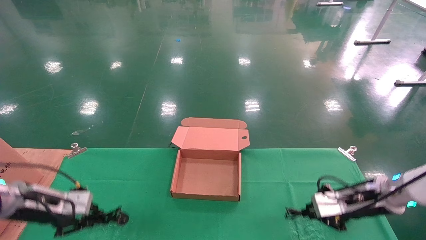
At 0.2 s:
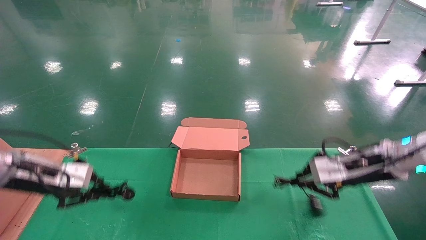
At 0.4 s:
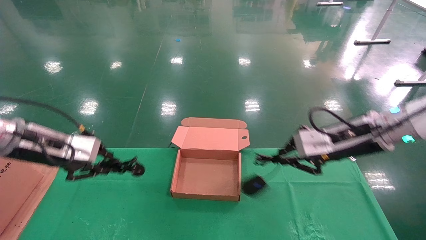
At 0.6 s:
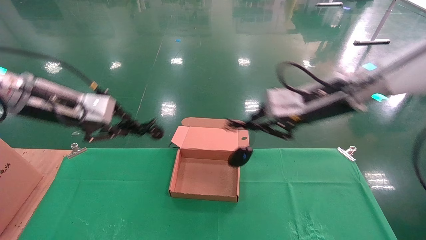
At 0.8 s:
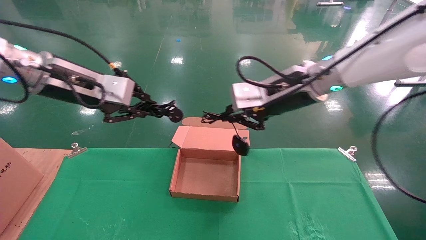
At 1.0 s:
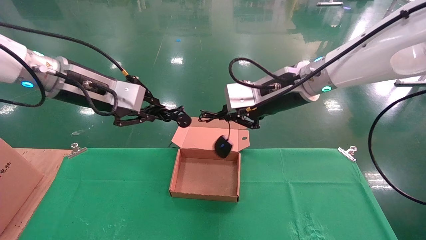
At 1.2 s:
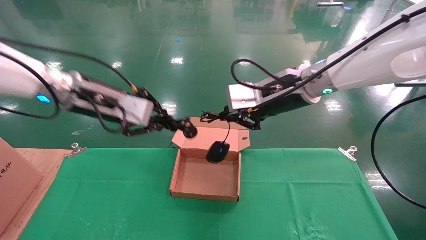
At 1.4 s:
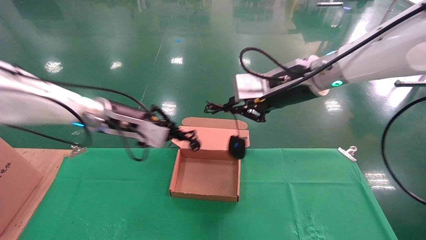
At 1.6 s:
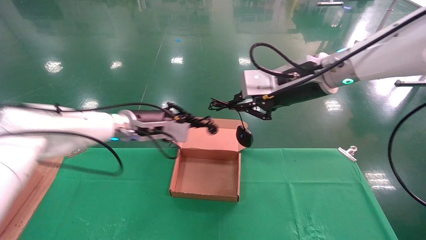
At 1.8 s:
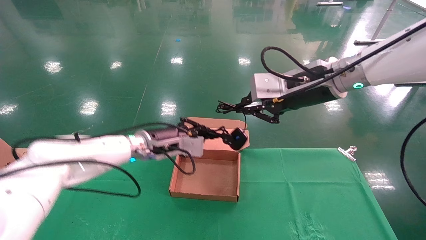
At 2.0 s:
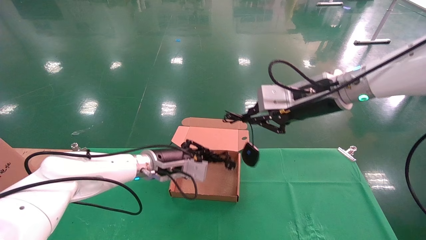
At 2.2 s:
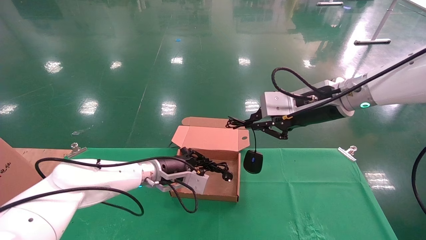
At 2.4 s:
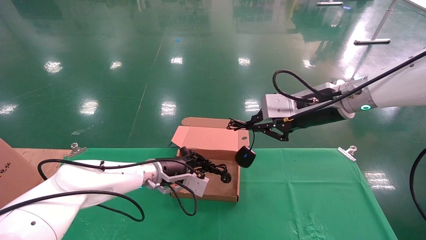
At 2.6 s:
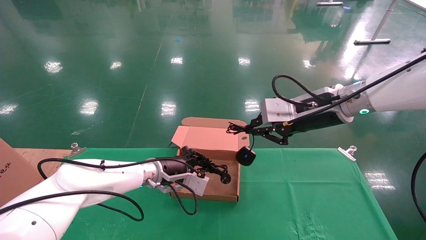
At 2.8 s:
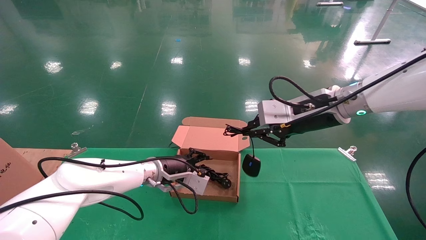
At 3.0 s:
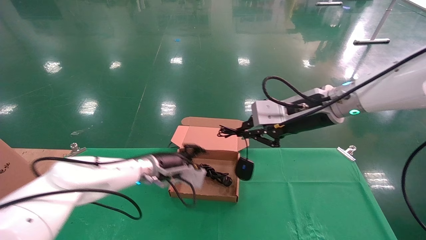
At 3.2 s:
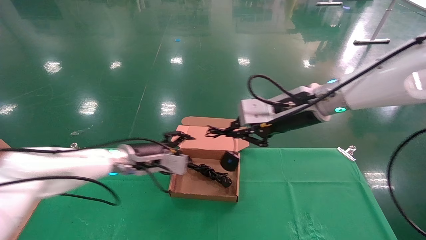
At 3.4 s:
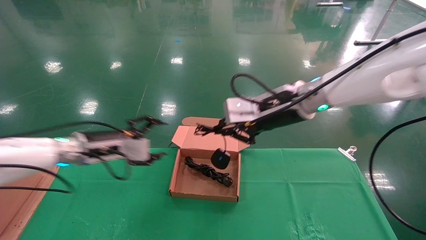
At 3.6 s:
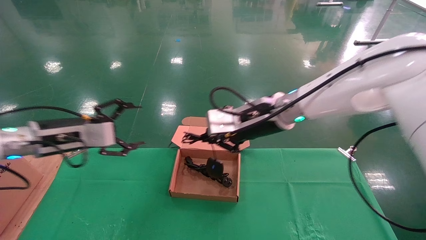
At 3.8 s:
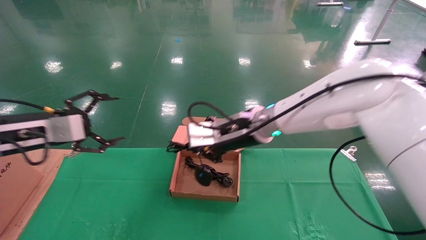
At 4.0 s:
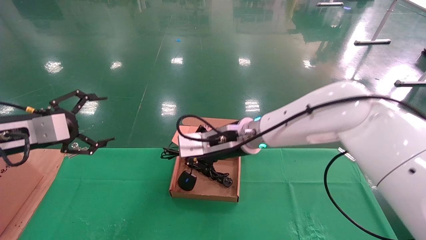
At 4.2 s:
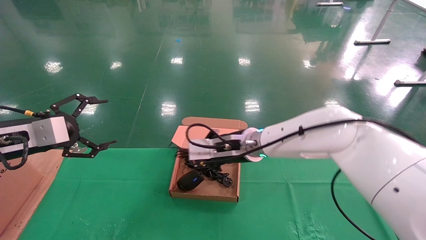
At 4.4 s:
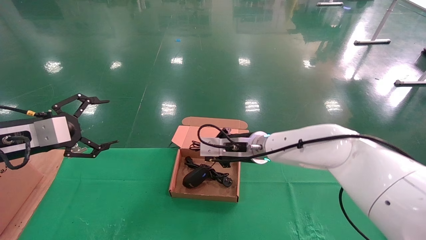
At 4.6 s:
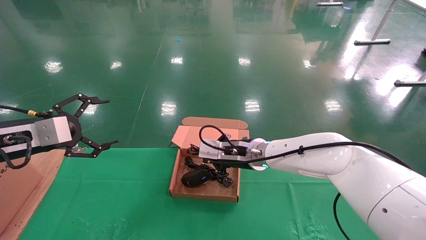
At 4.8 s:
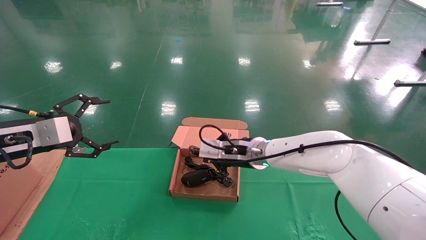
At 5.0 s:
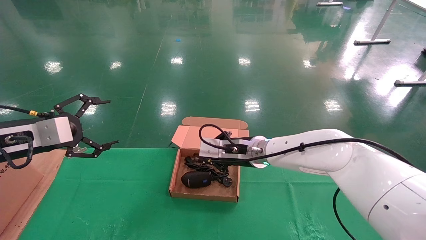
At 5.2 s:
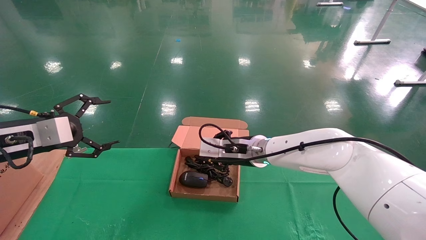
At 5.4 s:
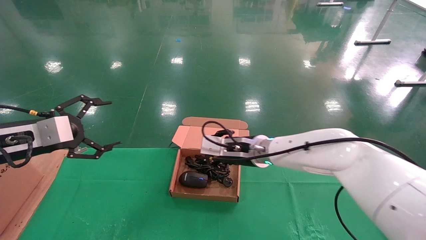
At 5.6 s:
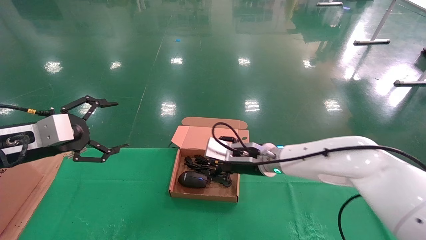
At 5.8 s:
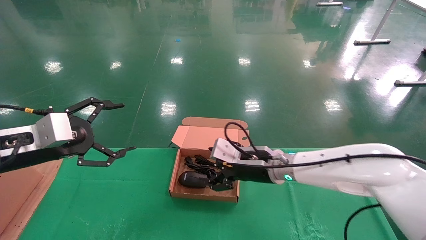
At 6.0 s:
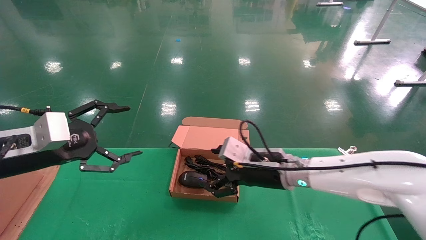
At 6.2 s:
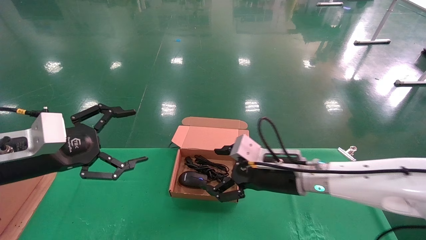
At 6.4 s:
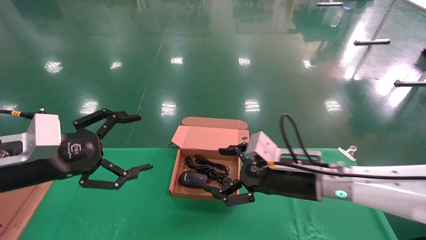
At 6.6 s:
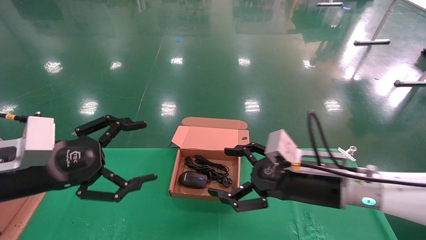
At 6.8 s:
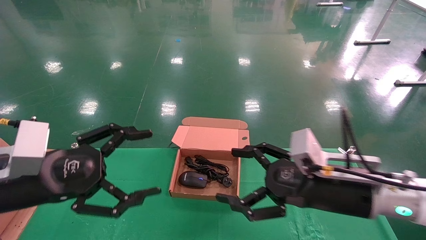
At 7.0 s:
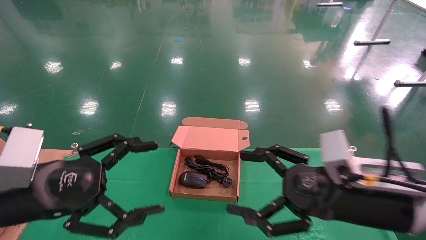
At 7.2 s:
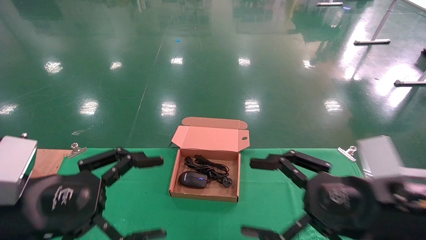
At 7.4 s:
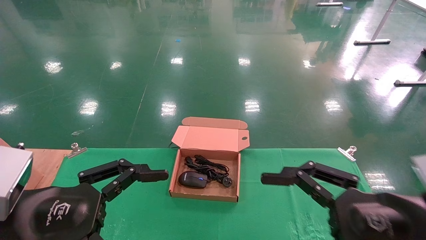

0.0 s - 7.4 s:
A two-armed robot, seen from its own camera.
Step, 0.0 s - 6.2 s: Place the mouse and power cord into the box.
0.0 s - 1.4 s: The left gripper is displaced to the right and upward by roughly 25 cm. Meanwhile the right gripper moves upward and to the left, approximately 30 cm.
1.4 s - 3.0 s: The right gripper shifts by approximately 5 cm, while the left gripper travels downward by some 15 cm.
3.0 s - 4.4 s: The left gripper shifts about 30 cm to the left, backward and upward, and opens its fingers. Meanwhile the right gripper travels downward, to the left and forward by roughly 20 cm.
4.4 s - 6.0 s: The left gripper moves some 5 cm; the right gripper heads to the right and backward, covering roughly 10 cm, and opens its fingers.
6.0 s - 7.4 s: The left gripper travels backward and to the right by about 15 cm. The right gripper heads backward and to the right, covering roughly 25 cm.

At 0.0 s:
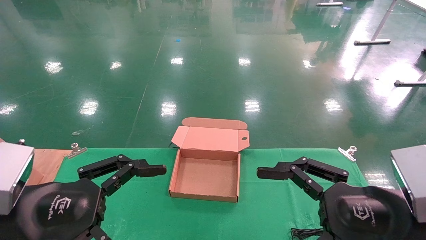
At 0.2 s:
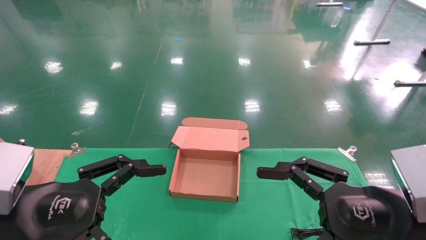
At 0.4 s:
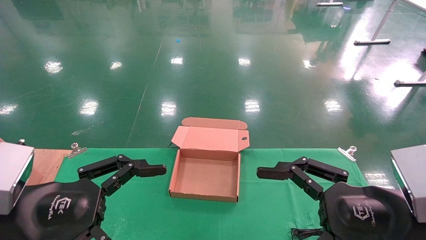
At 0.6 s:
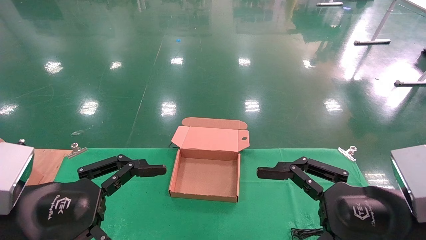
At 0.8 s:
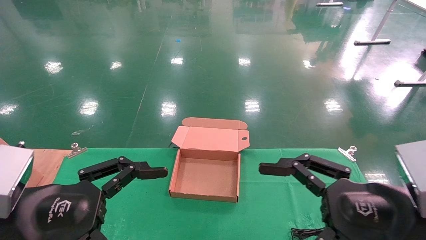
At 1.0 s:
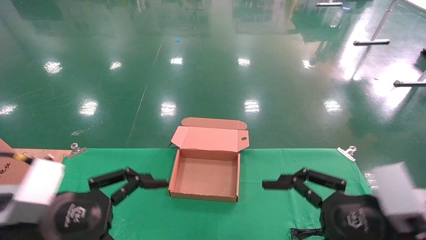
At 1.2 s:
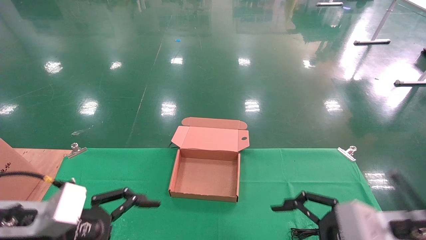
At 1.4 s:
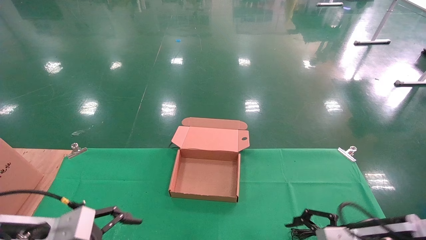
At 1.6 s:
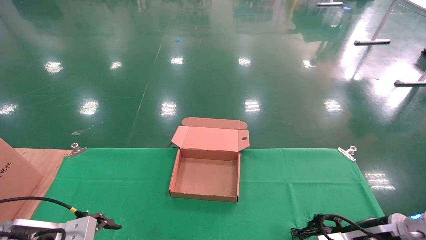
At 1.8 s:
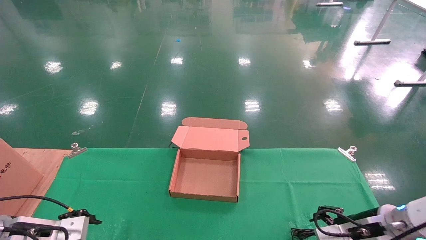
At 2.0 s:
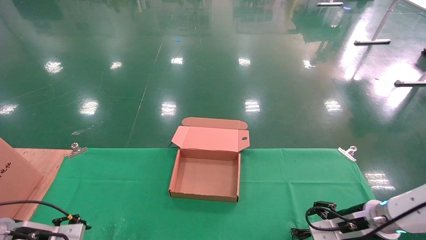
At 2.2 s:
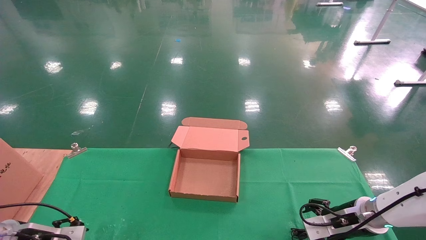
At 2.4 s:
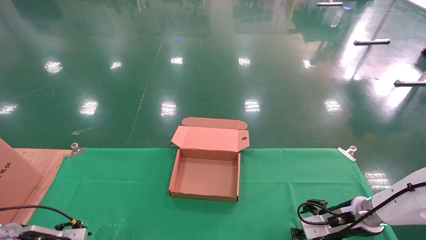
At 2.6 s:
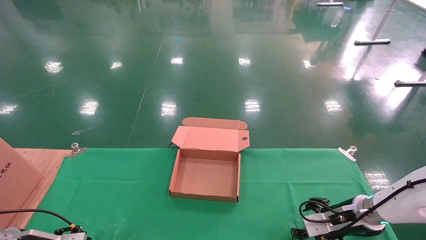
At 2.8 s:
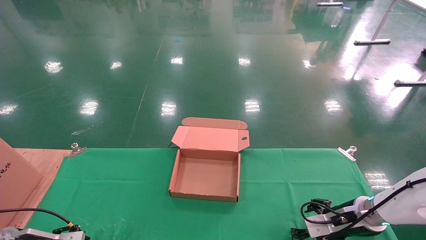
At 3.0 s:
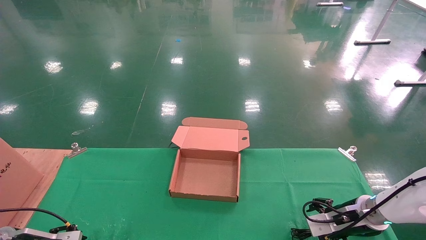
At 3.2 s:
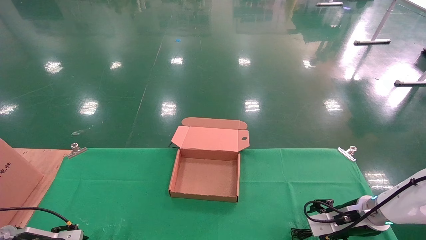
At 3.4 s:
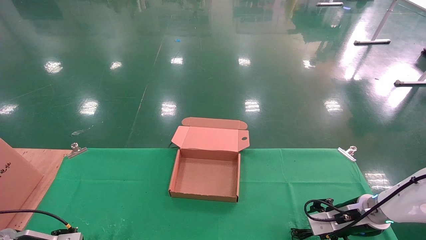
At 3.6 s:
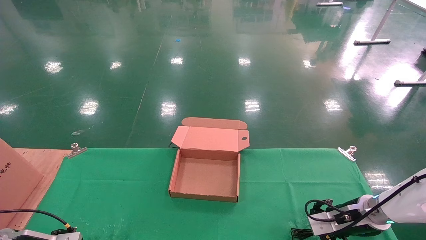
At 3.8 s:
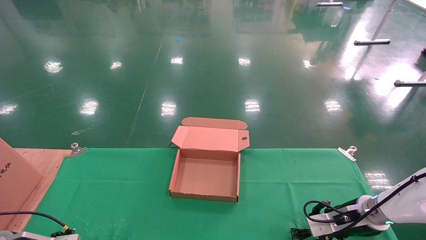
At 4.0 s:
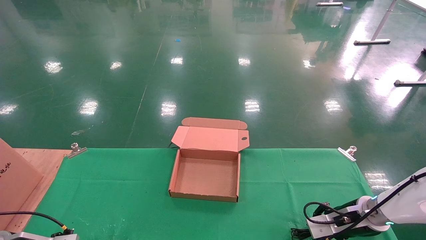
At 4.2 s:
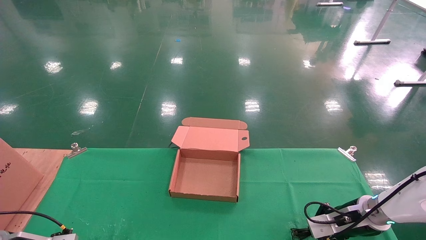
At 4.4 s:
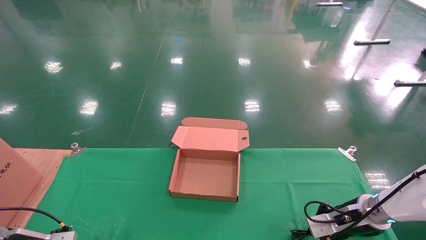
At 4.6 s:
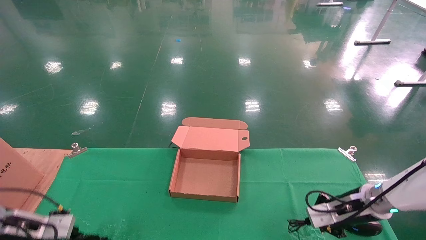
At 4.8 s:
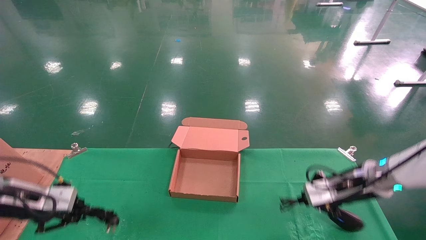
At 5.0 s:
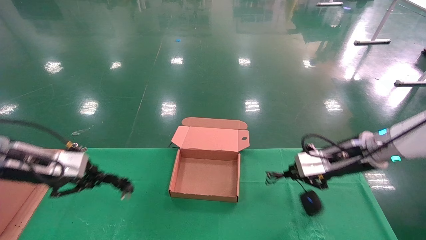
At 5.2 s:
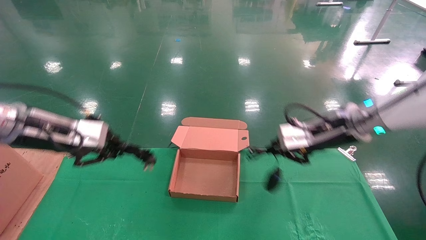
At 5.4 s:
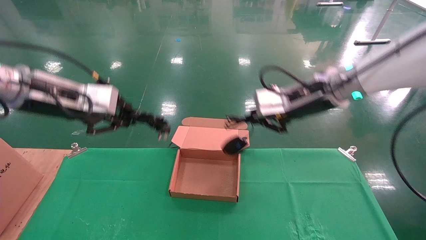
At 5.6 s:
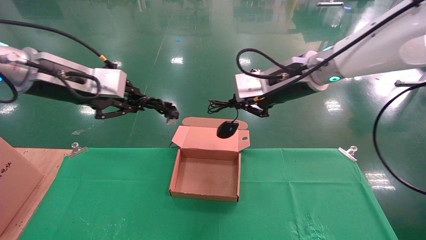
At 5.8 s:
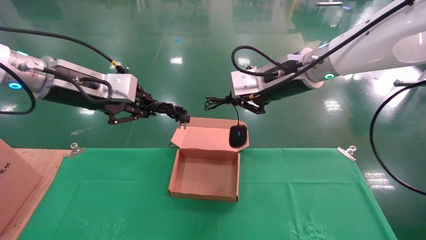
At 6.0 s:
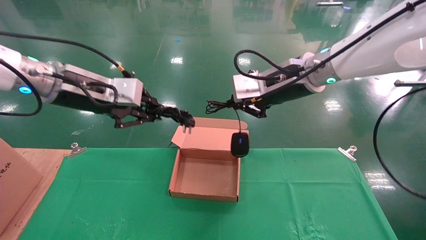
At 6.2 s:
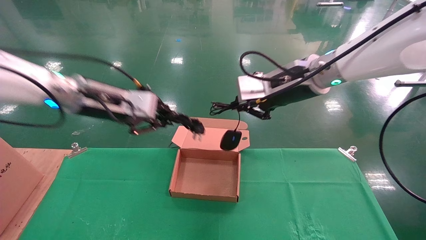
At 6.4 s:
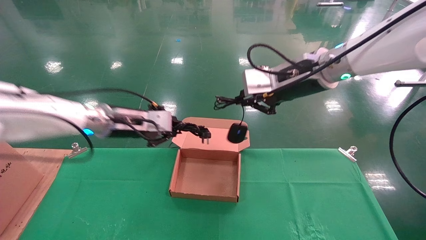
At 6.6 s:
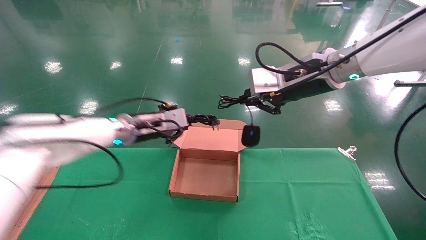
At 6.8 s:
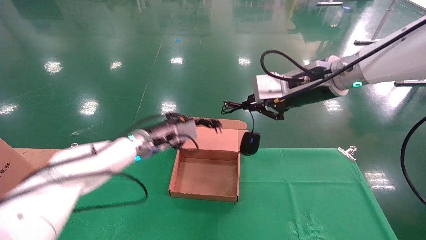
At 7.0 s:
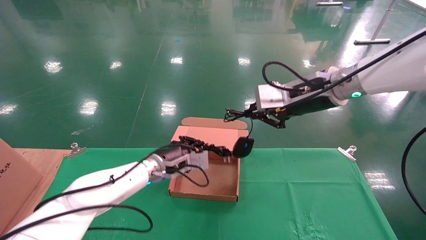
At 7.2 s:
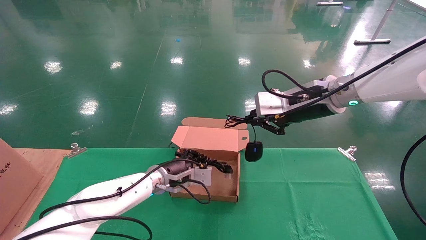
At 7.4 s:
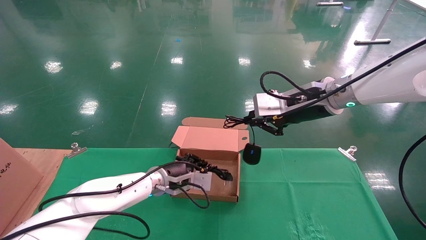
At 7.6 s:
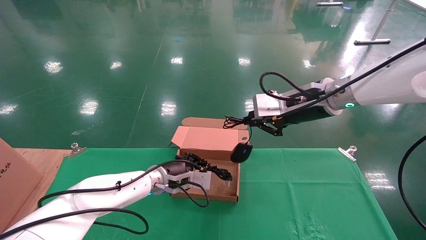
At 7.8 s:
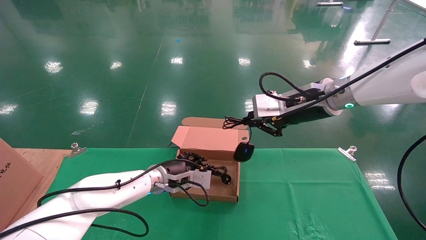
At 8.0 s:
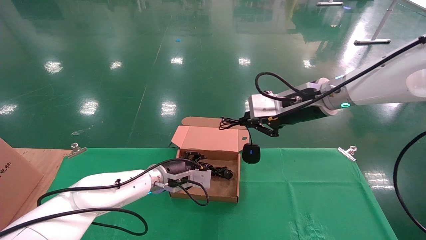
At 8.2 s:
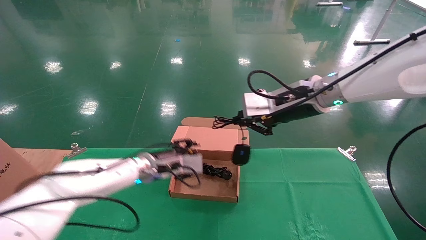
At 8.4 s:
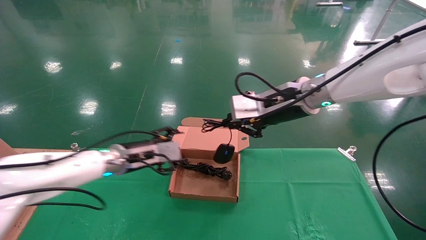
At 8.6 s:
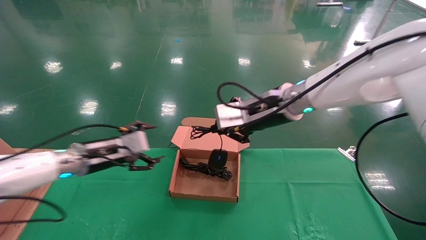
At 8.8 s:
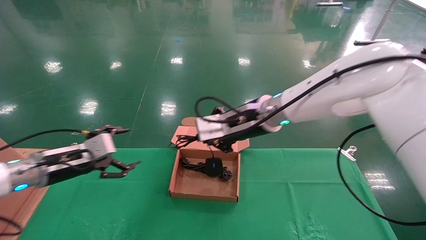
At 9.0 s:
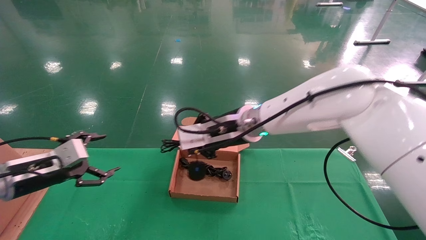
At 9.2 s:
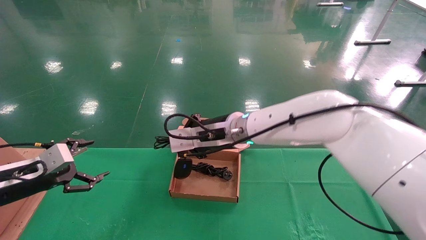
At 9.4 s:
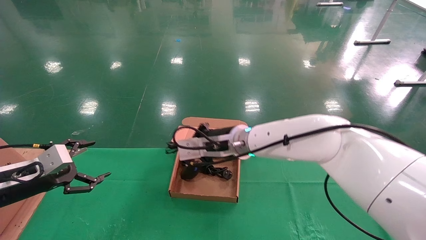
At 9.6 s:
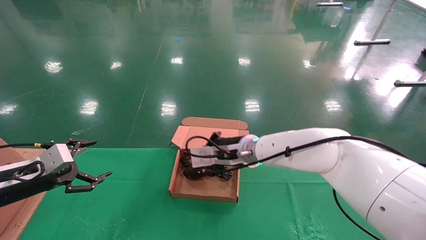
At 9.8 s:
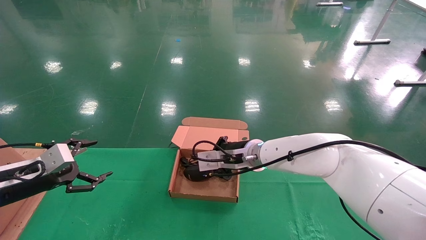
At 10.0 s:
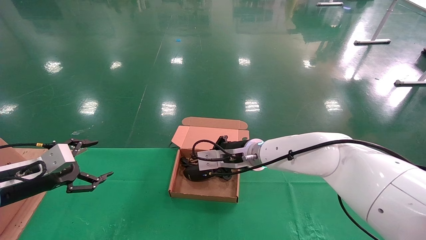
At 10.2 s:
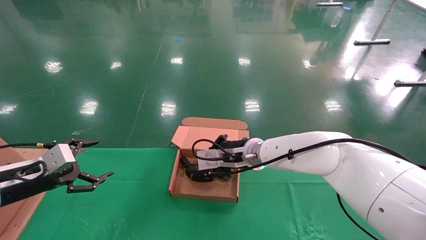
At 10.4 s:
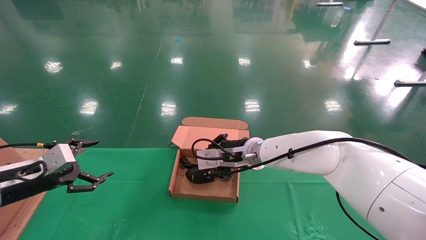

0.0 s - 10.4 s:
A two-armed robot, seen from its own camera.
Step, 1.6 s - 4.8 s: Grab and lift both the mouse and power cord from the accessory packaging area at the same time.
0.0 s - 1.4 s: The left gripper heads downward, forward and to the left, covering some 15 cm. The right gripper shifts approximately 15 cm downward and forward.
1.4 s - 3.0 s: The right gripper is displaced forward and downward by roughly 15 cm. The left gripper travels to the left, downward and forward by approximately 15 cm.
3.0 s - 4.4 s: The left gripper closes. Meanwhile the right gripper closes up.
4.4 s - 6.0 s: The right gripper travels upward and to the left by some 35 cm. The left gripper travels upward and to the right by approximately 35 cm.
6.0 s - 7.4 s: The right gripper moves some 5 cm. The left gripper moves downward, to the right and forward, approximately 30 cm.
7.4 s - 9.0 s: The right gripper shifts some 15 cm to the left. Meanwhile the left gripper travels to the left and backward by some 30 cm, and opens.
9.0 s - 10.4 s: The right gripper shifts roughly 10 cm downward.
